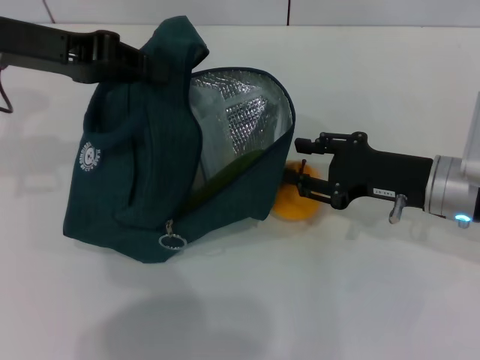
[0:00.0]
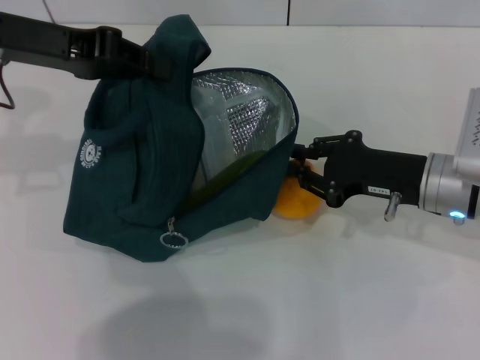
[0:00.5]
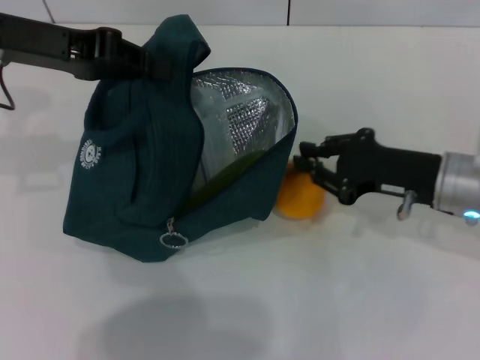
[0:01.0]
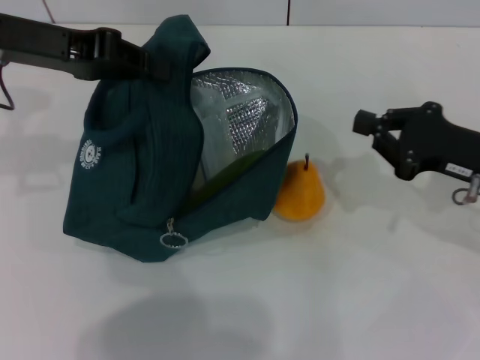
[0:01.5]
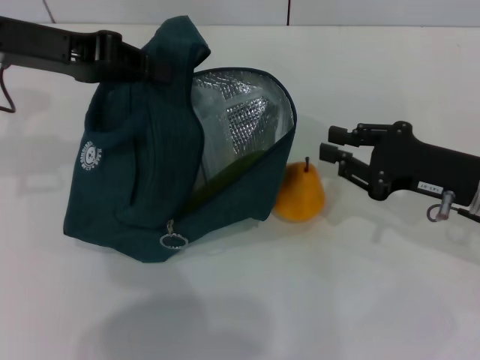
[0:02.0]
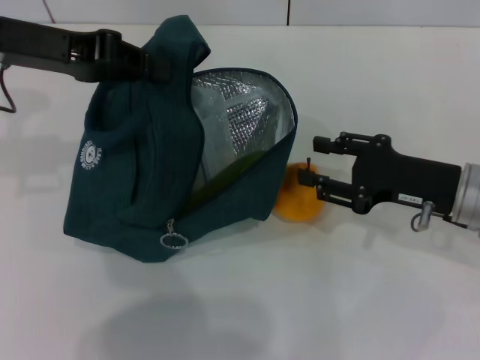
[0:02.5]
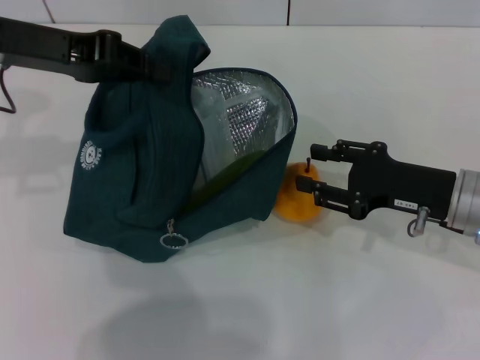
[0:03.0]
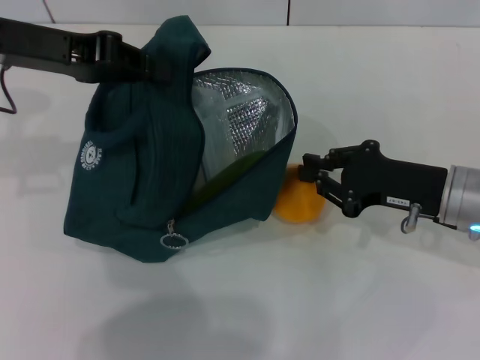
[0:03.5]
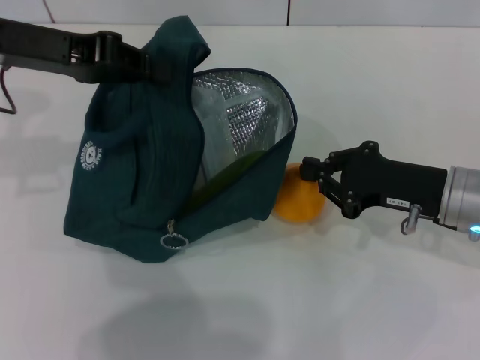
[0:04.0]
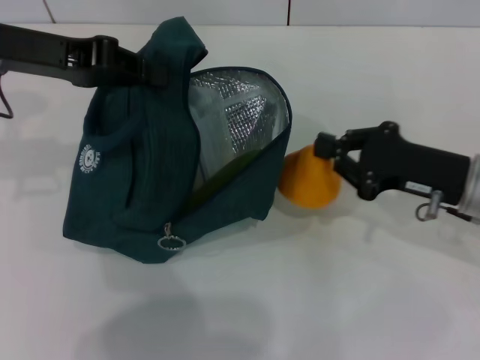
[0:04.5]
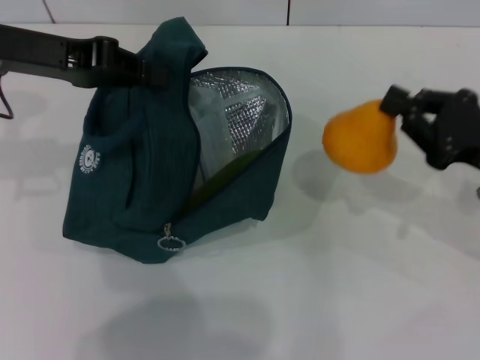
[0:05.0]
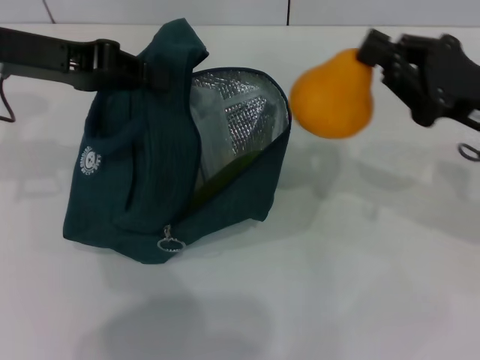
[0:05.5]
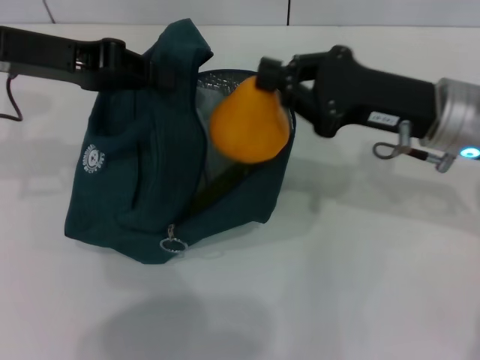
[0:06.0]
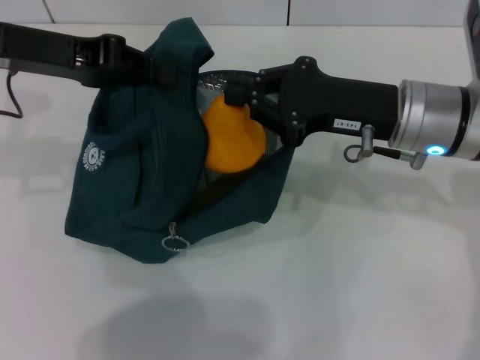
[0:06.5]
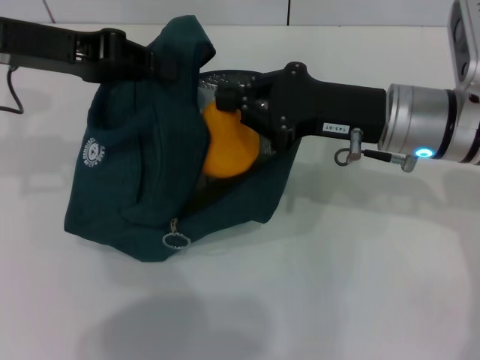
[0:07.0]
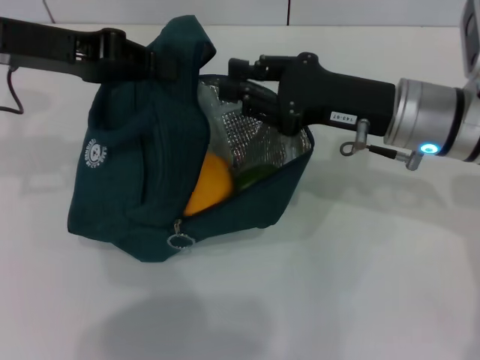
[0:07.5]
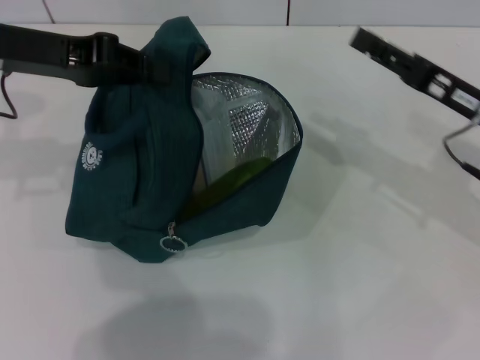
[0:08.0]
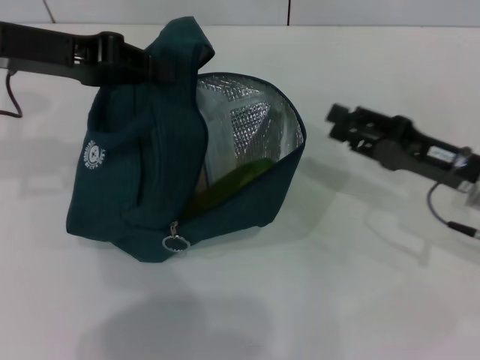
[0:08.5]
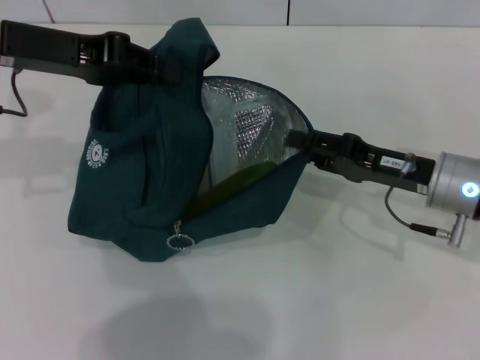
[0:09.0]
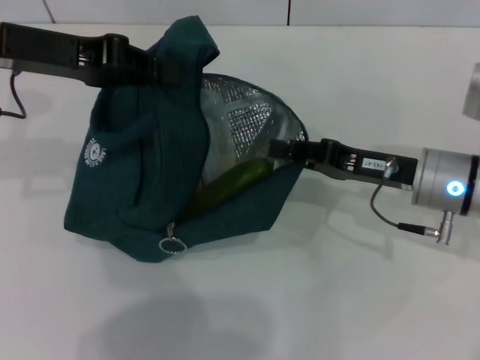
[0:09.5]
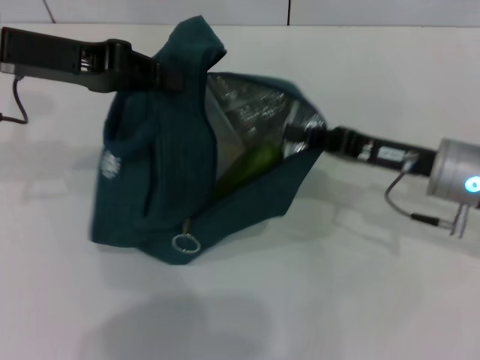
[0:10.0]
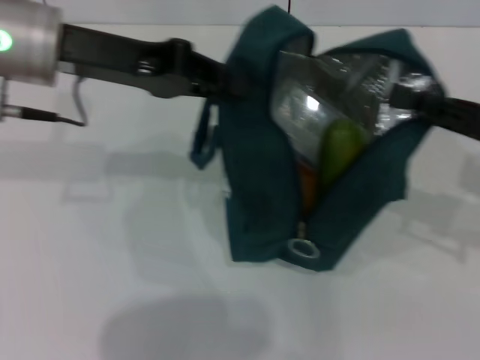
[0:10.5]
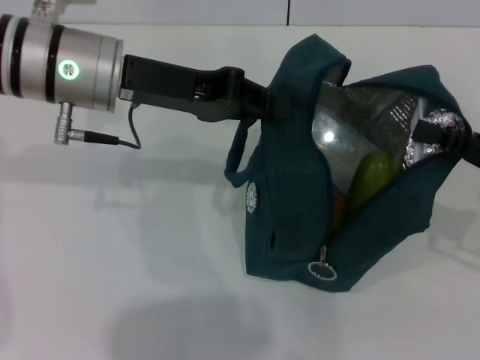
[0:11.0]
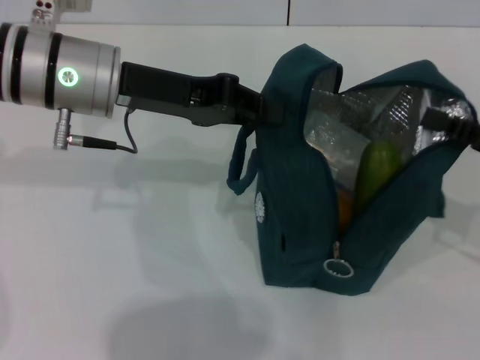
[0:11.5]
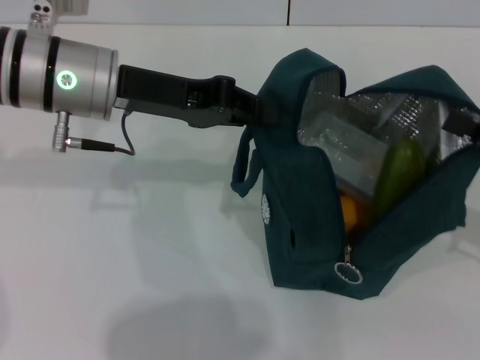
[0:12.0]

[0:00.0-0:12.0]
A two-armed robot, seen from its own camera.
Step, 0:00.0 to 0:03.5: Grab the pear with your right hand.
0:00.0 to 0:02.0: The right gripper closes up.
0:02.0 to 0:04.0: The right gripper opens and closes again.
0:04.0 to 0:06.0: The right gripper shifts approximately 5 cm upward.
0:06.0 to 0:08.0: The right gripper travels to the right by some 5 cm, and opens its fingers.
0:08.0 to 0:10.0: The right gripper shifts by approximately 5 cm, and closes up.
0:10.0 to 0:12.0: The right gripper travels to the right by some 15 cm, and opens. Meanwhile the left gripper goes approximately 10 cm to the right.

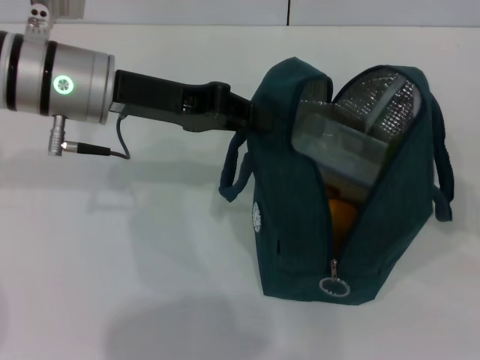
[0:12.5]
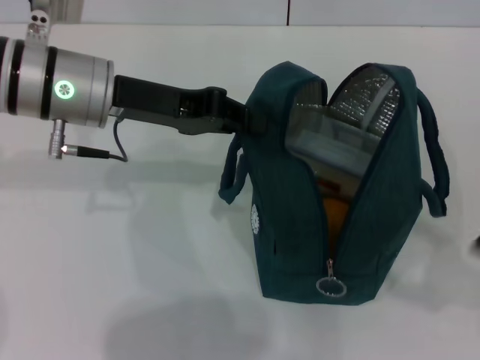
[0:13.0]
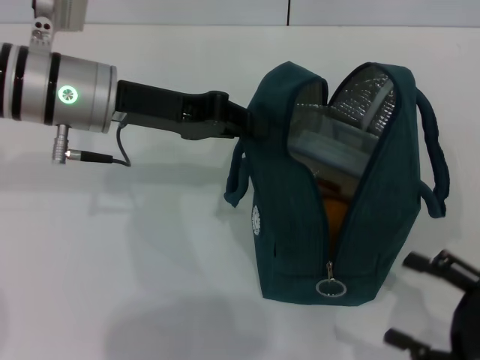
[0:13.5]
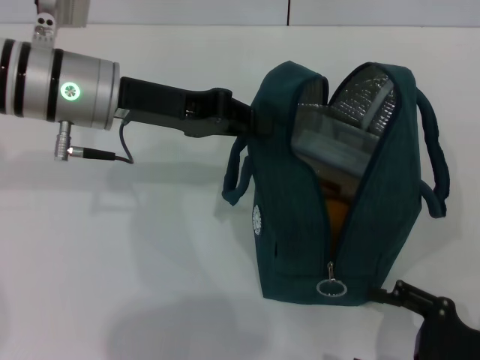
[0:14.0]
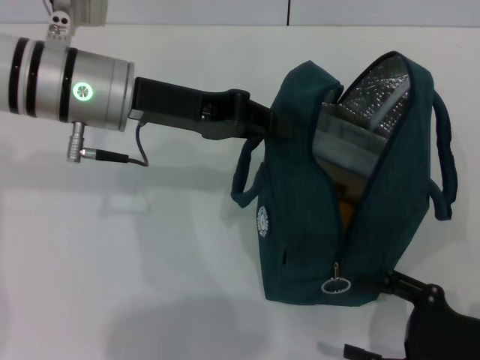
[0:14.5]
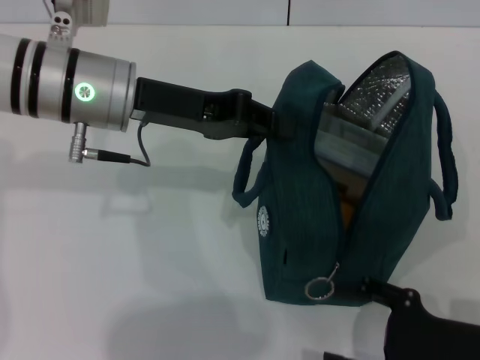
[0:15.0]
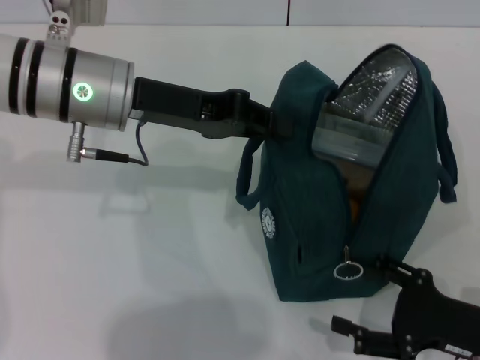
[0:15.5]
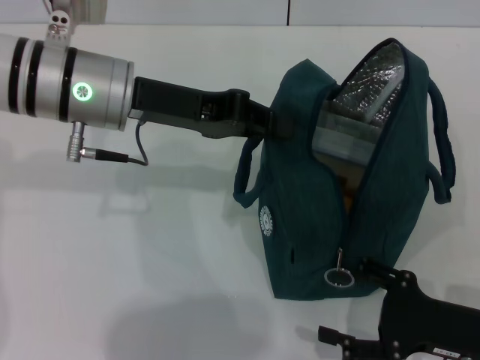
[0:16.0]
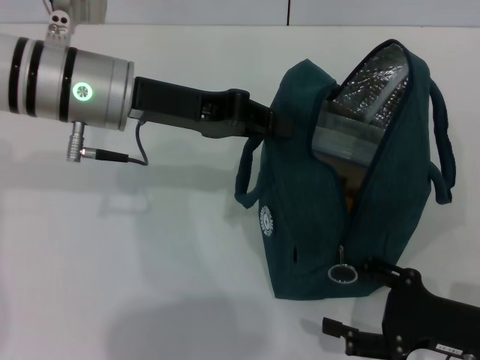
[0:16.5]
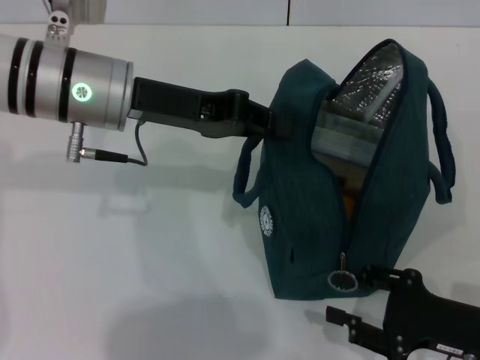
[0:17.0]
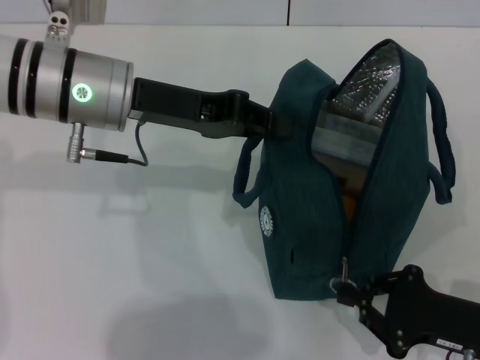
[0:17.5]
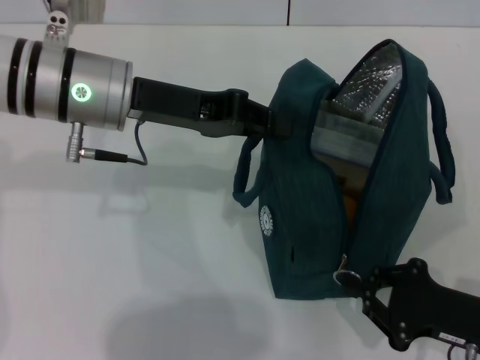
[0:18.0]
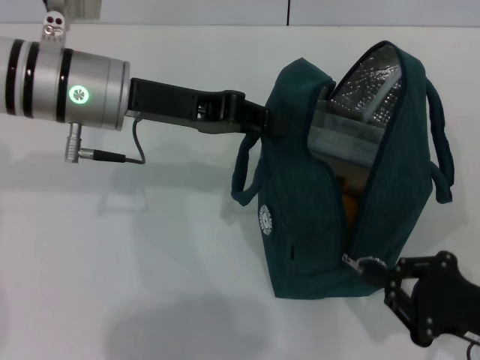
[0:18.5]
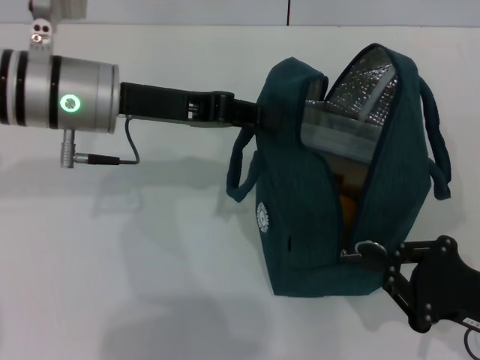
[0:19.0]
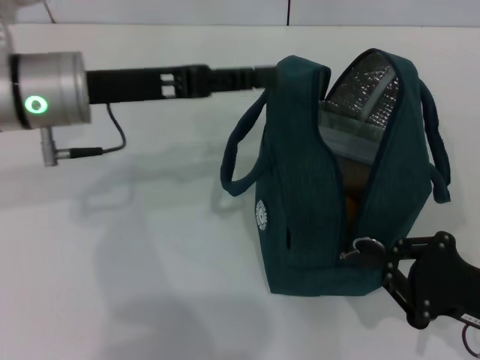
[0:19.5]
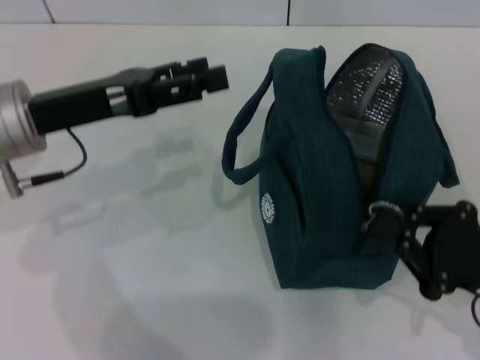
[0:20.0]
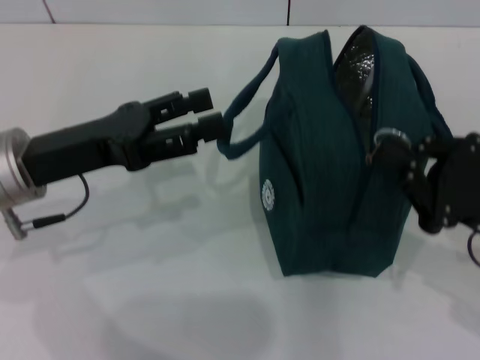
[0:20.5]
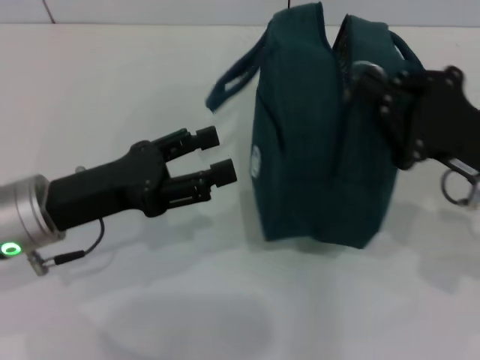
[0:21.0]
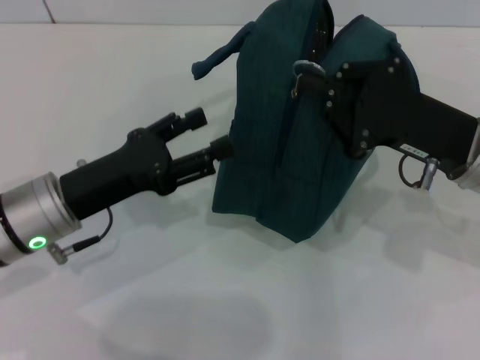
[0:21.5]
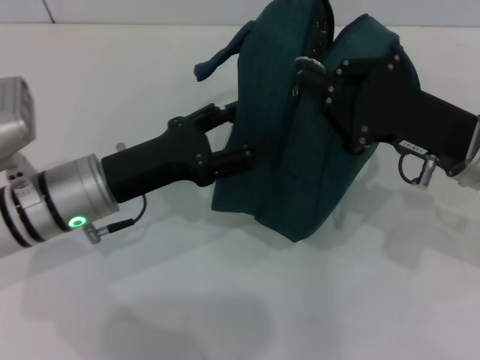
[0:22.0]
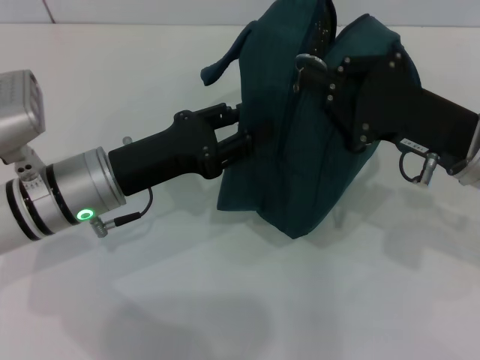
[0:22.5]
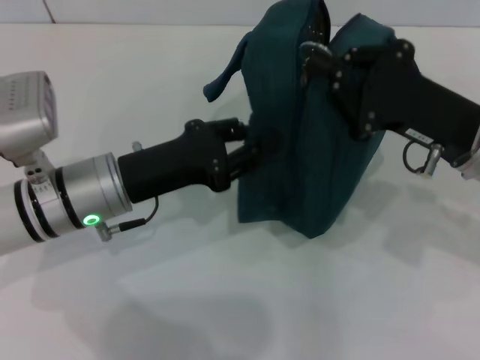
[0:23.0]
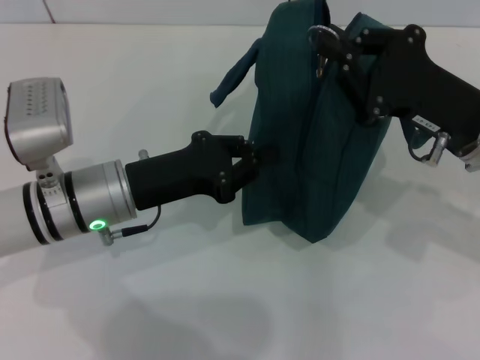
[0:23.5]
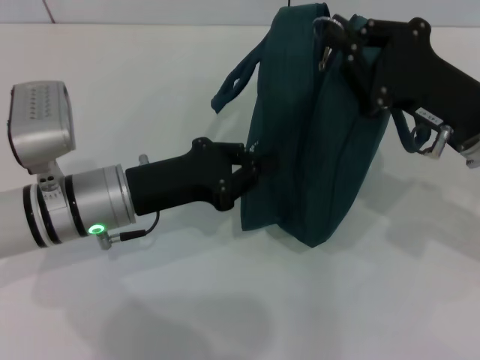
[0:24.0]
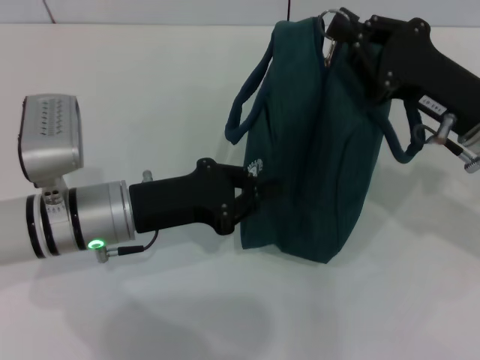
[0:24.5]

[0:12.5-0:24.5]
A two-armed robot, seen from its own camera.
Step, 0:12.5 to 0:19.0: Hold the lunch bag with your left hand.
0:12.5 to 0:14.5: The right gripper goes roughly 15 cm downward, to the left and backward.
0:14.5 to 0:16.5: The grippers move only a little.
0:16.5 to 0:18.5: The right gripper closes up.
0:18.5 to 0:20.5: The left gripper heads backward and to the left, covering approximately 10 cm, and opens its fingers. Meanwhile the right gripper is displaced upward and forward by approximately 10 cm.
0:20.5 to 0:22.5: The left gripper goes some 5 cm downward, while the right gripper heads forward and to the left, covering approximately 10 cm.
0:22.5 to 0:24.5: The left gripper closes its fingers.

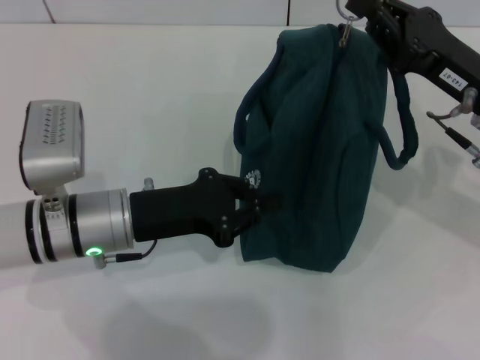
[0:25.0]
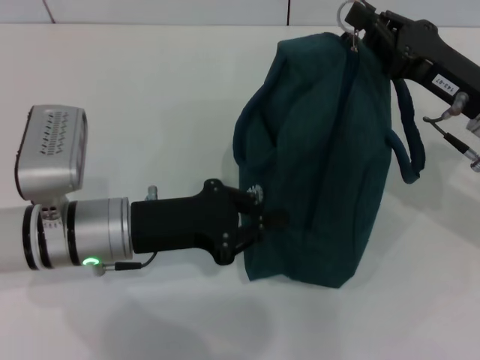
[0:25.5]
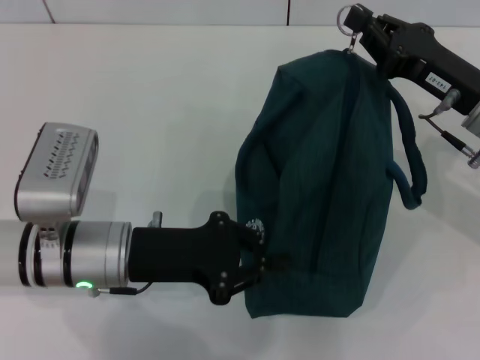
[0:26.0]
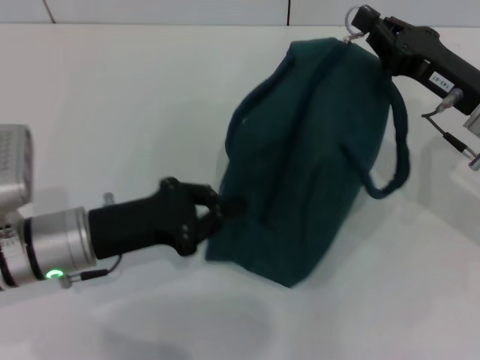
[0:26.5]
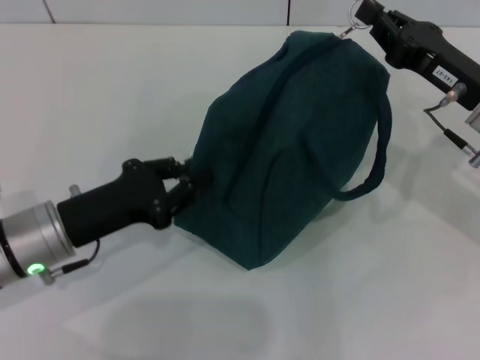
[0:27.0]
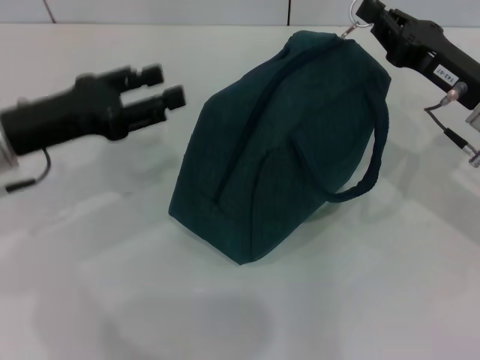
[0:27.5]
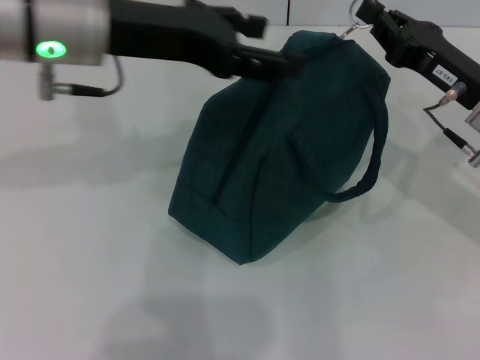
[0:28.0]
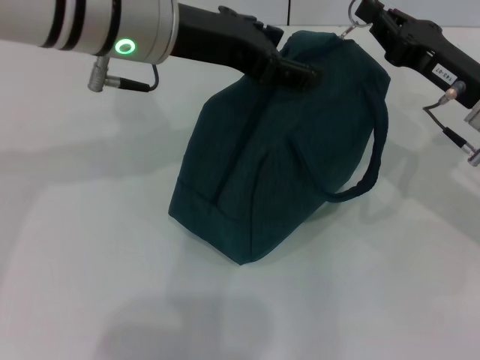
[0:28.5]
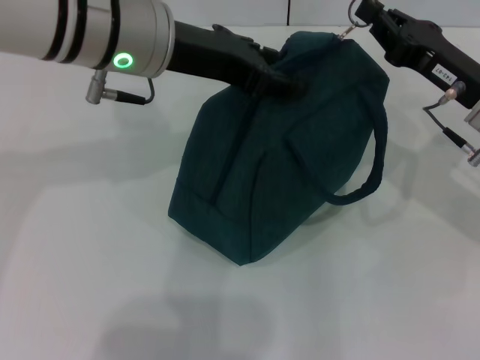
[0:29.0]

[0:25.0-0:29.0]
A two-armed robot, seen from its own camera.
0:25.0 to 0:27.0: The left gripper travels to the left by about 5 cm.
0:27.0 to 0:29.0: The left gripper shifts roughly 25 cm upward, to the right and forward, and opens up.
